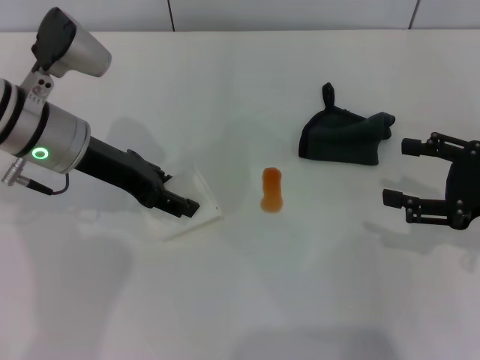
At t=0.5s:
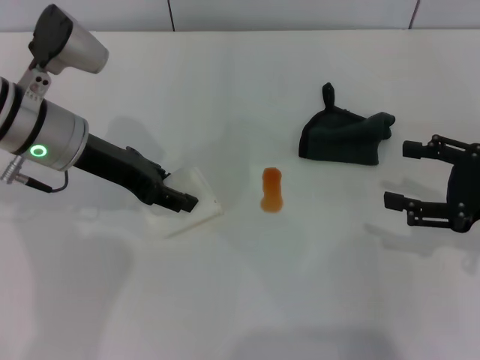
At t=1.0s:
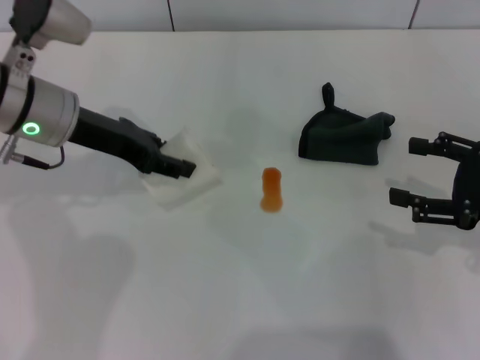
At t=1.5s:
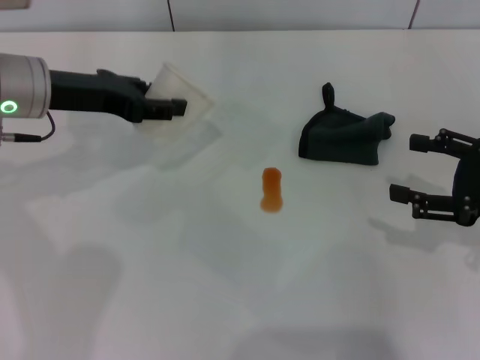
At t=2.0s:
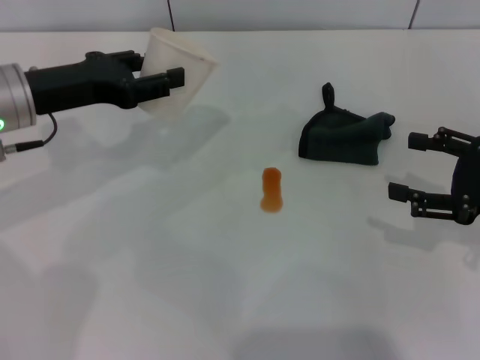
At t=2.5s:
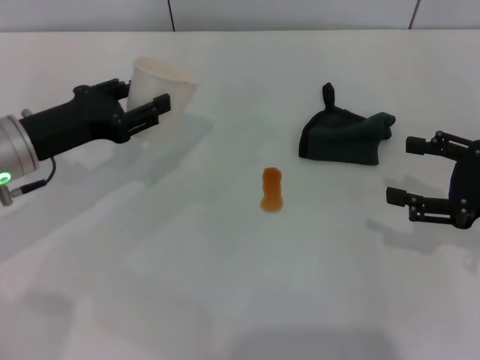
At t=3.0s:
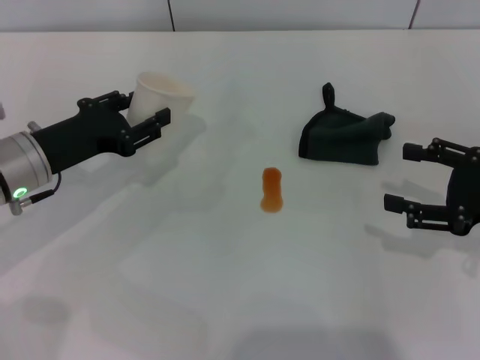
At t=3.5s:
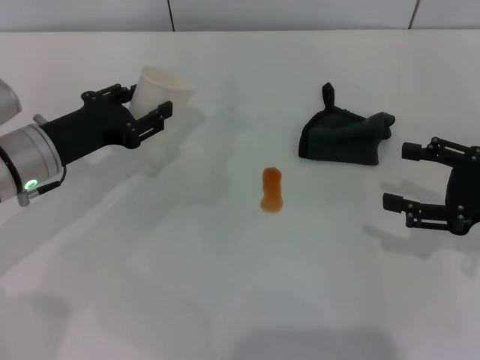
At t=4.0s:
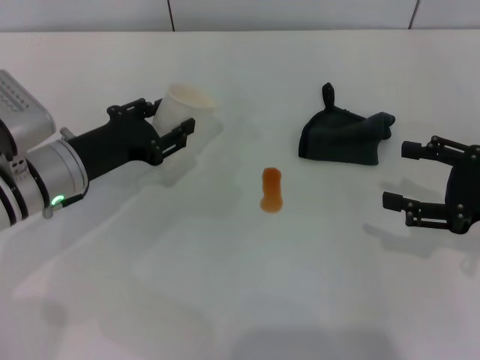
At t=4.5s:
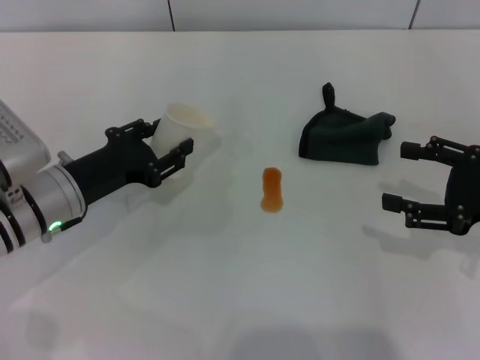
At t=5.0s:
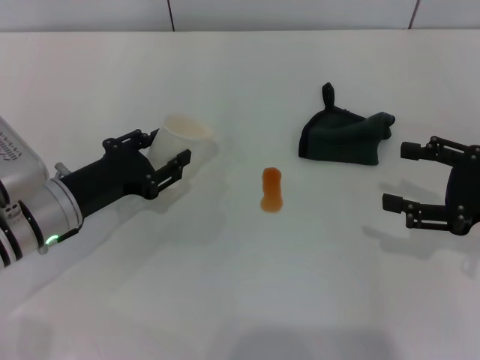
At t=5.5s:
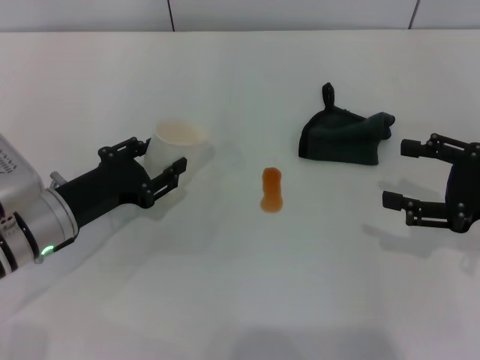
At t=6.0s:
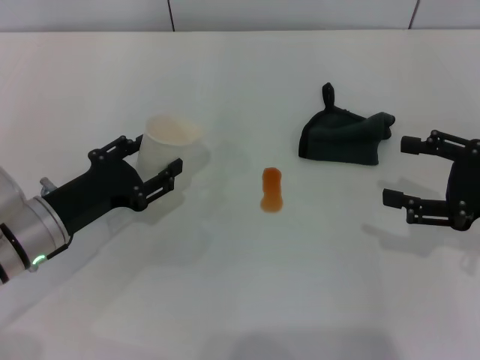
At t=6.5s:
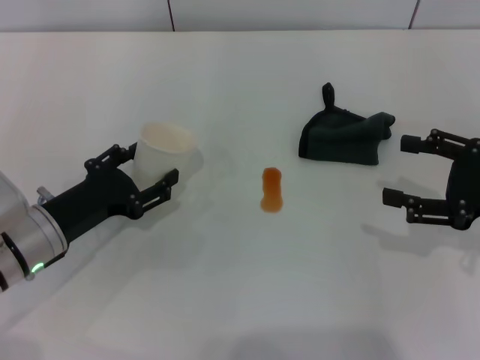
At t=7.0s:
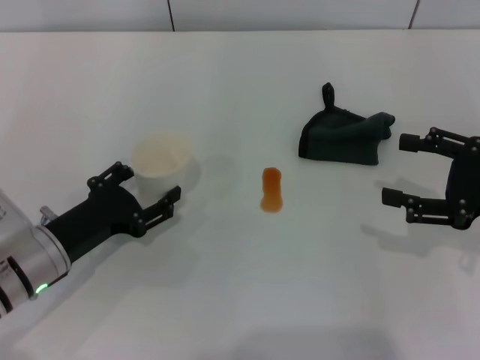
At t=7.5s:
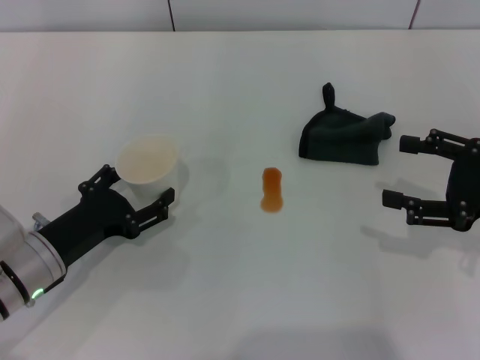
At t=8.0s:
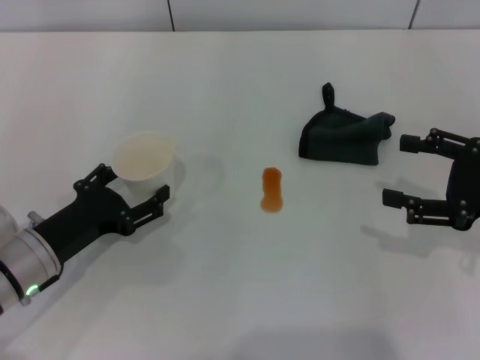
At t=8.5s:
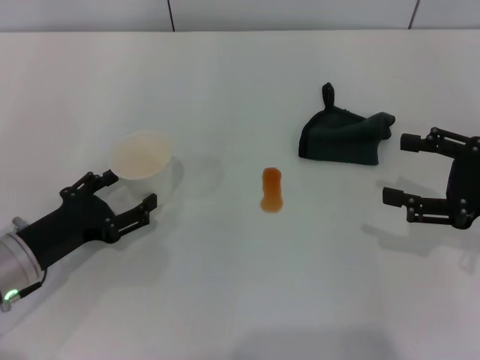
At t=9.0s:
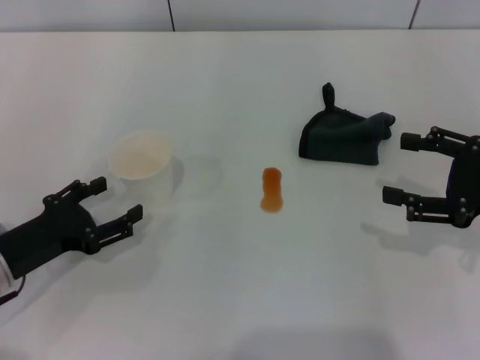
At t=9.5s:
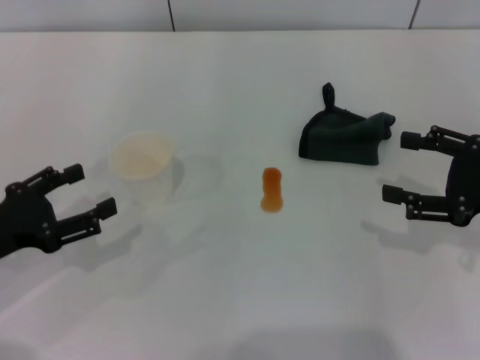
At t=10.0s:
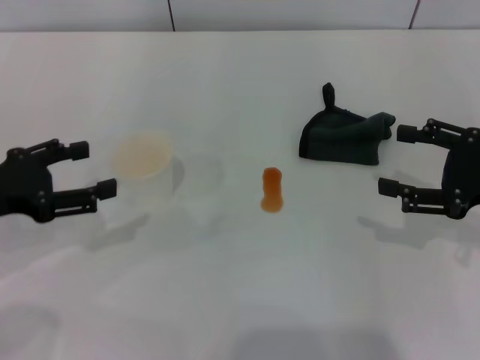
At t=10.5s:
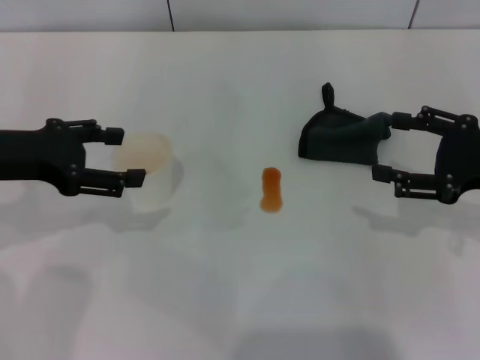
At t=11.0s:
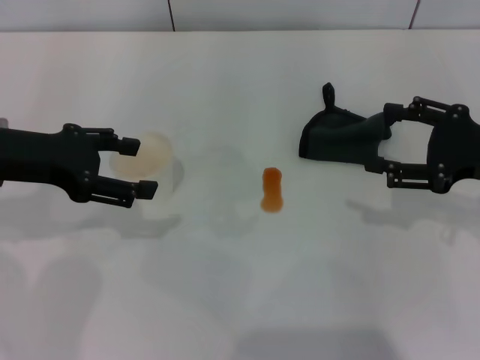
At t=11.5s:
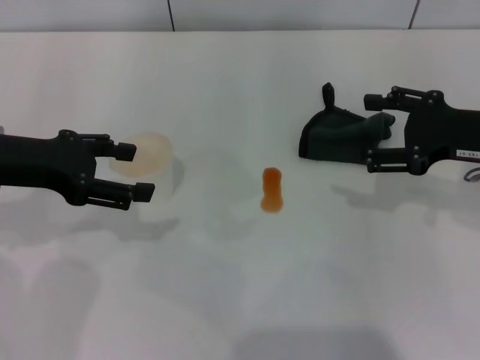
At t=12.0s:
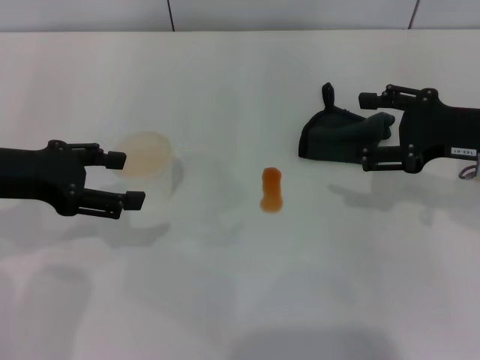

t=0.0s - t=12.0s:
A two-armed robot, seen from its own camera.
Step, t=0.5s - t=9.0s: Stand the paper cup upright with the left gripper.
t=0.0s - t=2.0s: The left gripper closes.
t=2.0s - t=4.0s: The left gripper goes some 10 cm downward.
t=4.0s - t=6.0s: The left gripper goes some 5 cm backward.
t=6.0s - t=8.0s: The left gripper opens its fingers.
t=8.0s - t=10.0s: The left gripper is displaced upward and to the left by about 15 cm.
t=10.0s - t=12.0s: The right gripper shifts about 5 cm forward. The left gripper moves about 5 cm.

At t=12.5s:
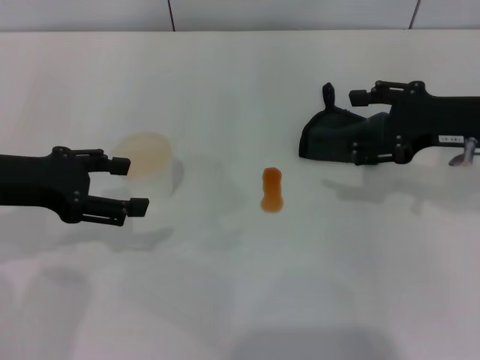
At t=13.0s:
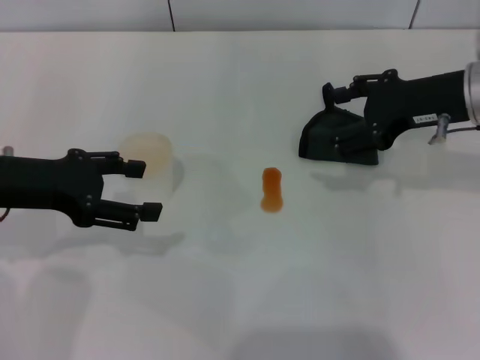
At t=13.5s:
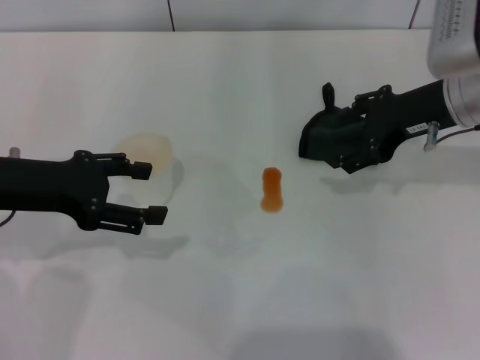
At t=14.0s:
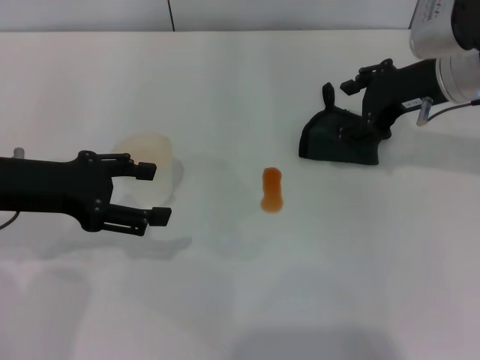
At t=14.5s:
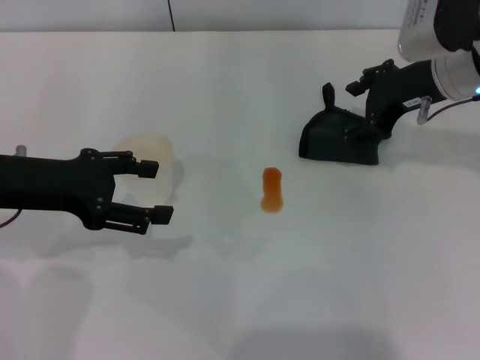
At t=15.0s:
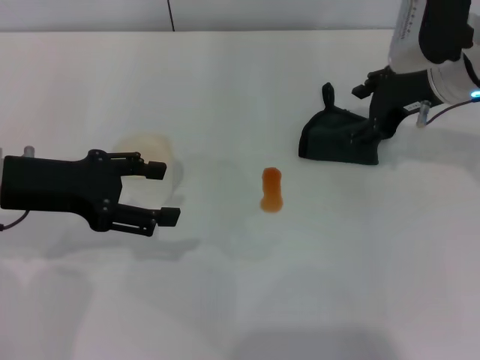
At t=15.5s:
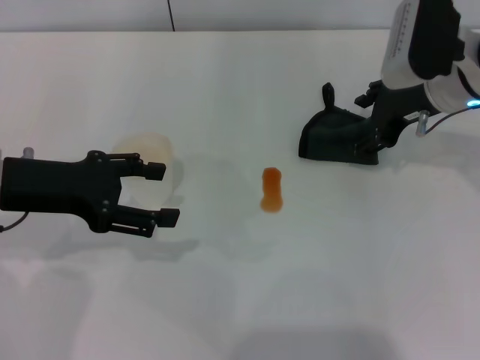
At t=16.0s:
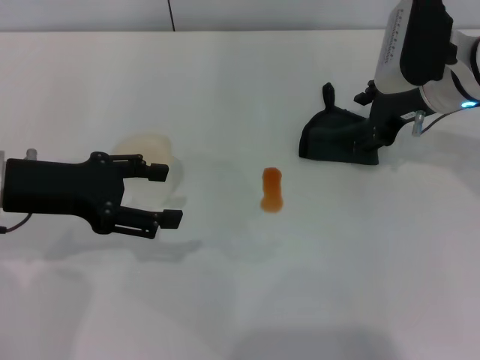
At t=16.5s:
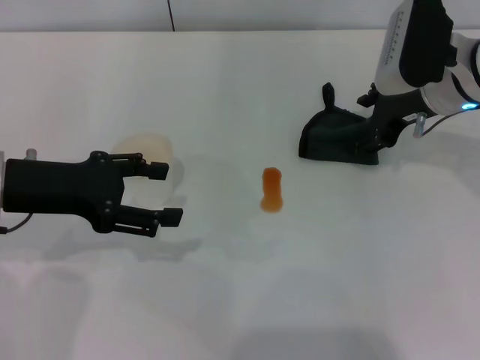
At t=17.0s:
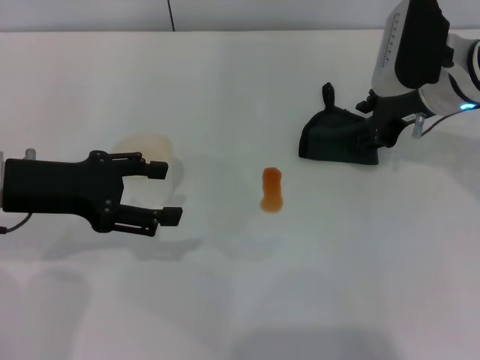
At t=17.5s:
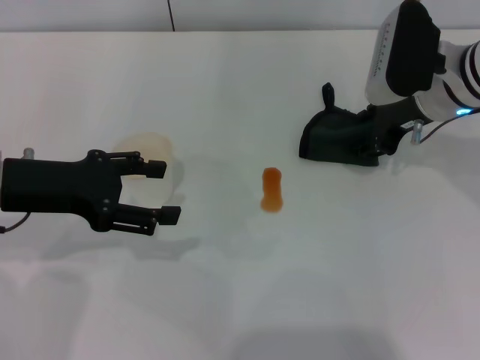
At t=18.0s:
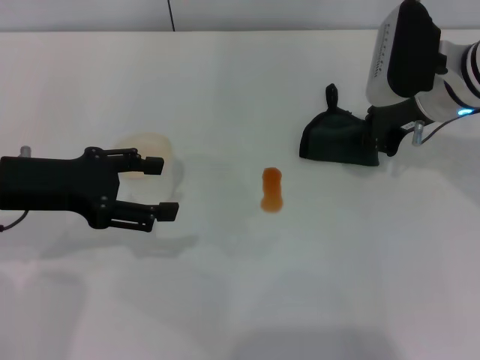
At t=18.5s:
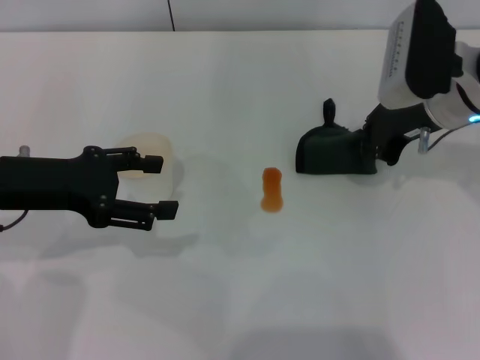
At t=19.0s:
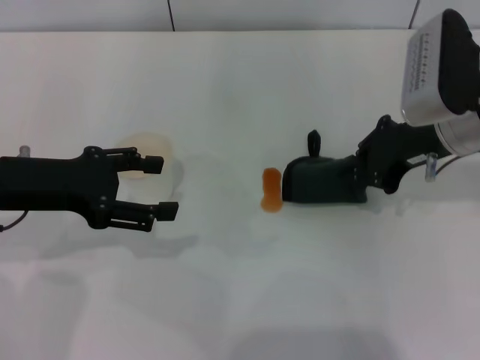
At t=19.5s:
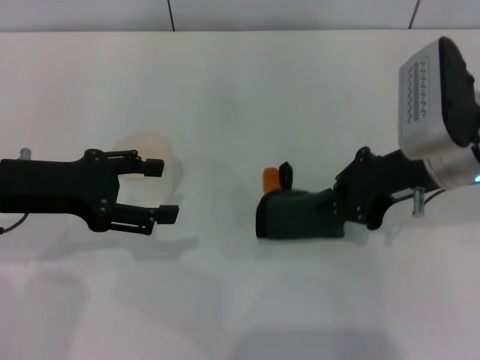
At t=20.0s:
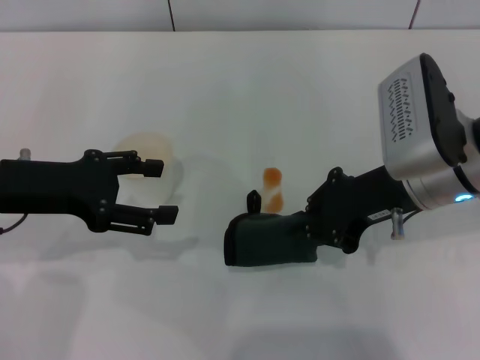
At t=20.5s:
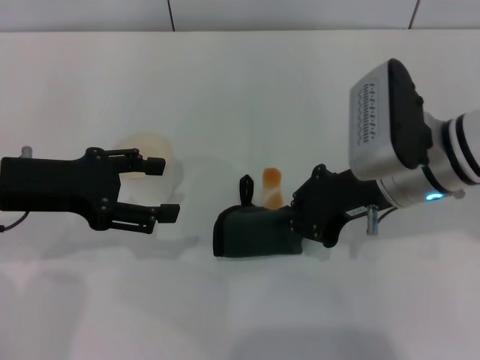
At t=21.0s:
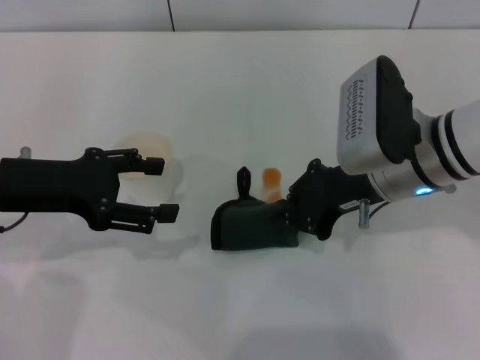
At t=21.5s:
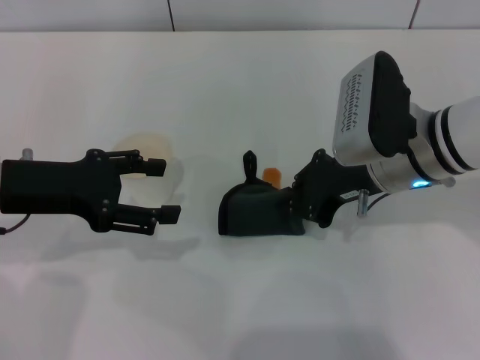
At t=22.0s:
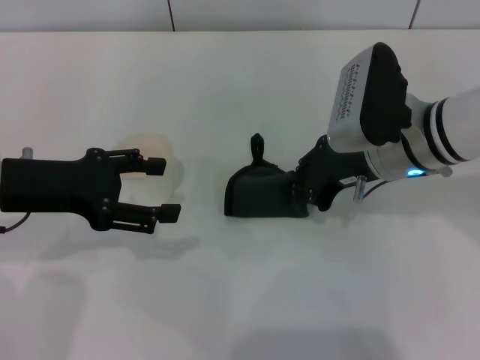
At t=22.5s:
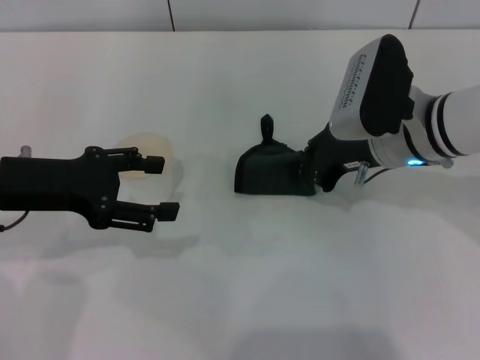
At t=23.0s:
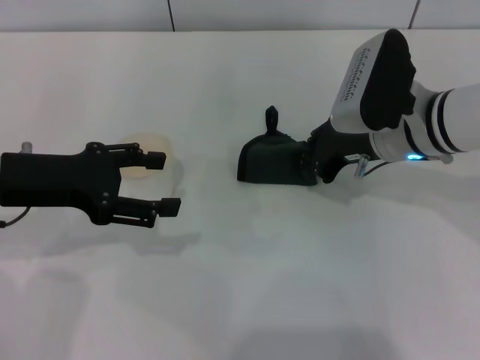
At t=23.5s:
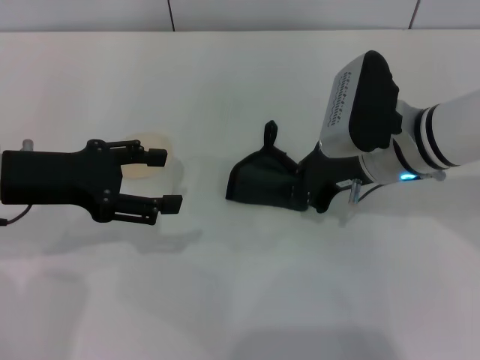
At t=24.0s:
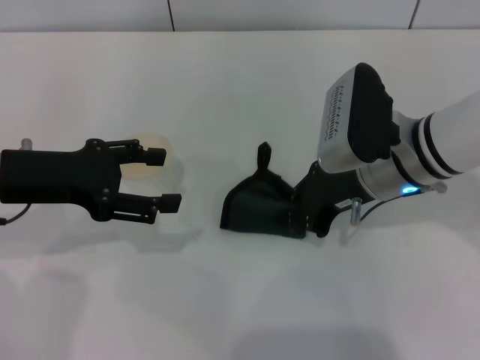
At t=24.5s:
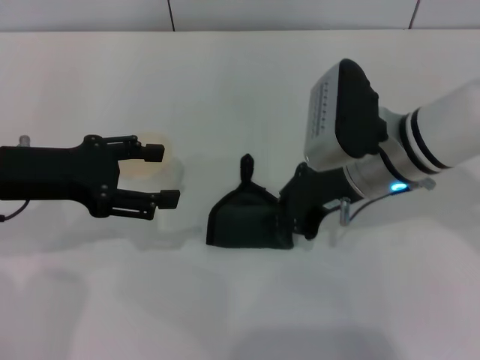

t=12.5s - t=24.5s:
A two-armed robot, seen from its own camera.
Step, t=12.5s - t=18.0s: Grasp the rag with the right gripper.
t=12.5s - t=14.5s: The right gripper heads forward, covering roughly 5 cm.
t=14.5s - t=16.5s: The grippers move only a little.
t=16.5s - t=18.5s: The right gripper closes.
t=18.5s - t=20.5s: The right gripper shifts roughly 5 cm backward.
t=20.5s - t=24.5s: The grippers make only small movements.

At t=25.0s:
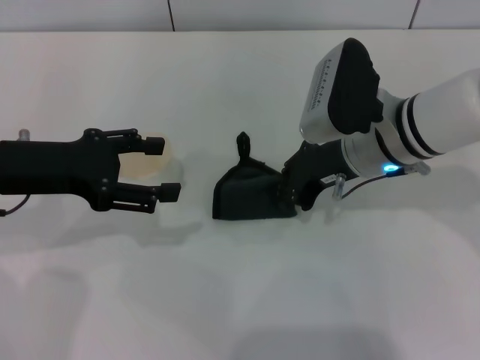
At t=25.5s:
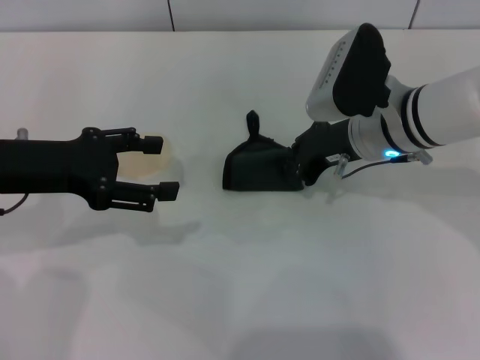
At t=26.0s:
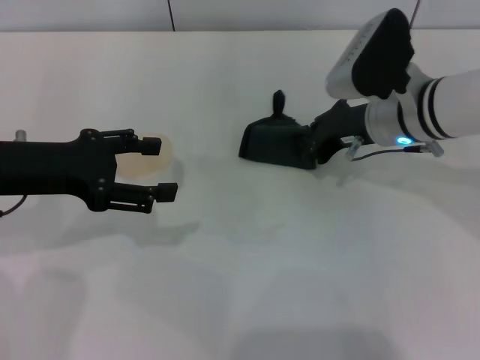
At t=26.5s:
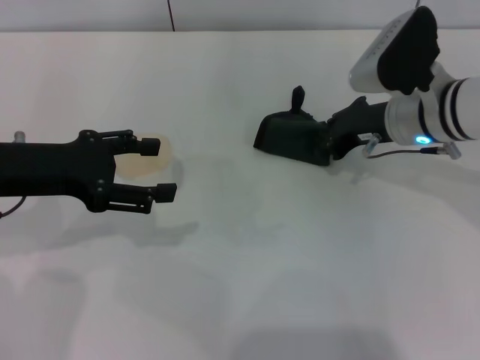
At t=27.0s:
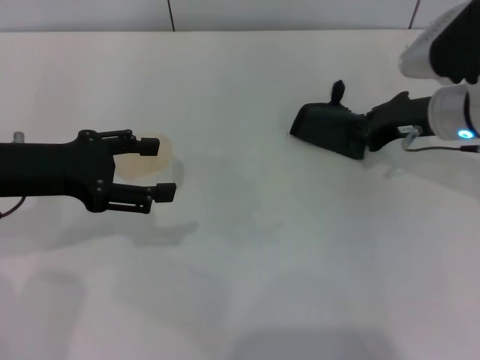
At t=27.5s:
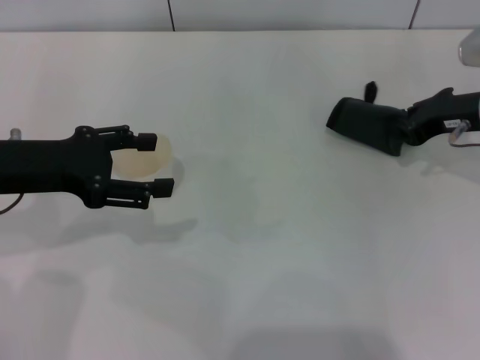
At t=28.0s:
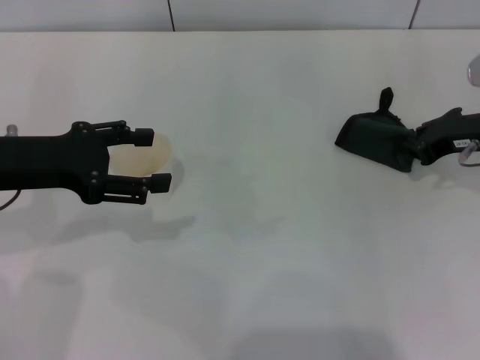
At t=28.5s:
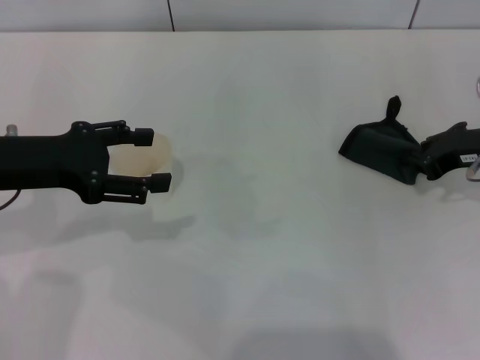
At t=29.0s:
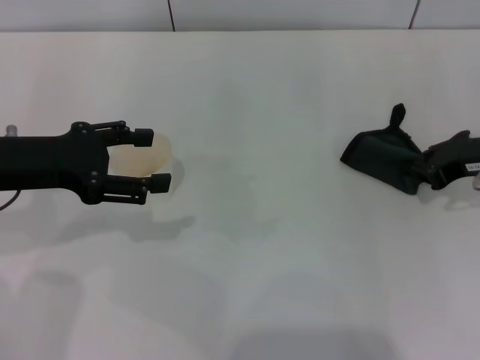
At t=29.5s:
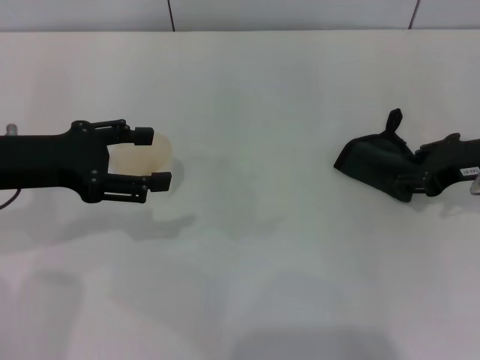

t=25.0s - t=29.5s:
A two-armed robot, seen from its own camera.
Step, t=25.0s - t=28.0s: Wipe the stains off the table with the right gripper.
t=25.0s - t=27.0s: The right gripper heads to the right, covering approximately 10 cm.
t=27.0s - t=29.5s: The right gripper heads to the right, covering some 5 cm.